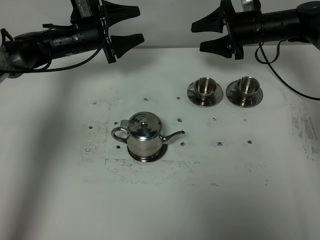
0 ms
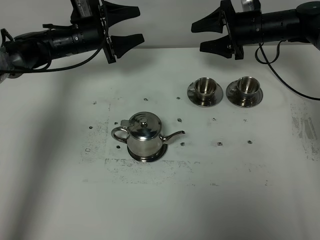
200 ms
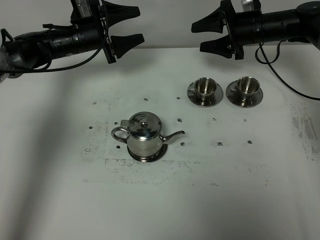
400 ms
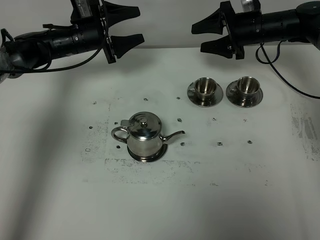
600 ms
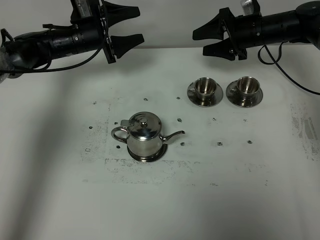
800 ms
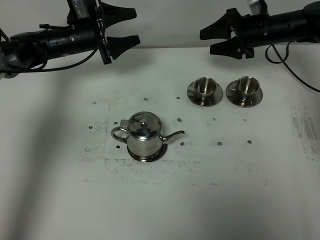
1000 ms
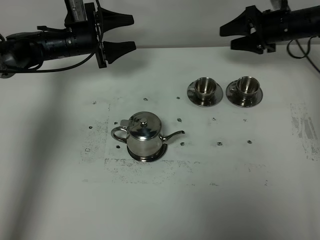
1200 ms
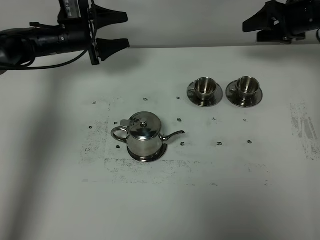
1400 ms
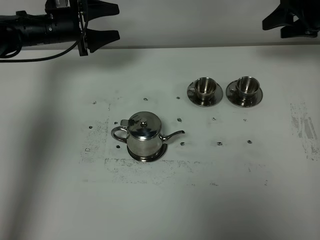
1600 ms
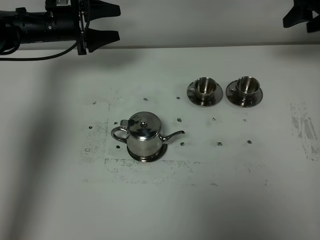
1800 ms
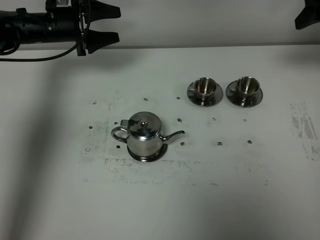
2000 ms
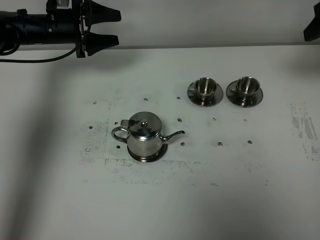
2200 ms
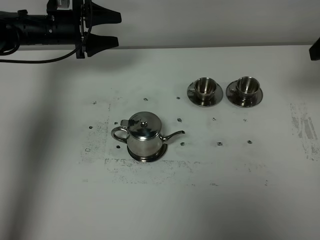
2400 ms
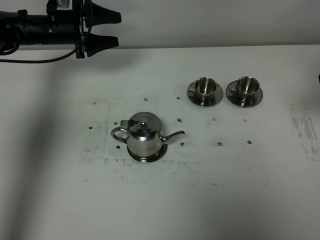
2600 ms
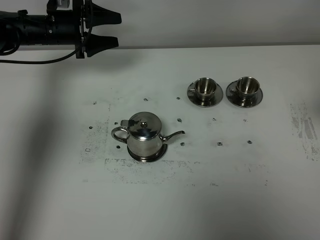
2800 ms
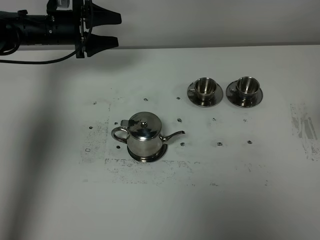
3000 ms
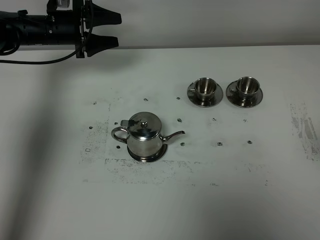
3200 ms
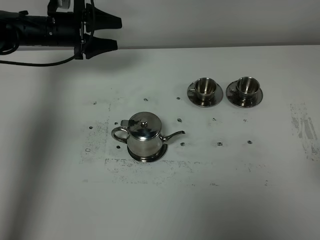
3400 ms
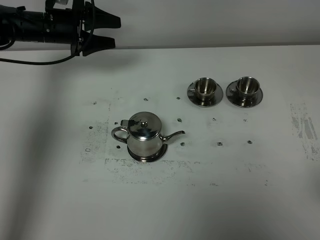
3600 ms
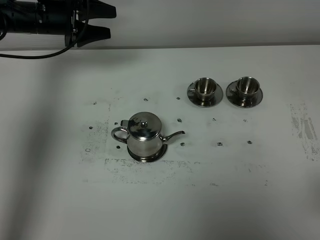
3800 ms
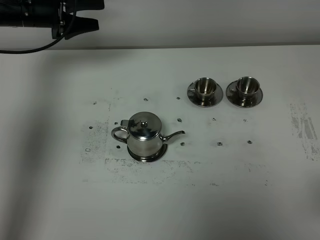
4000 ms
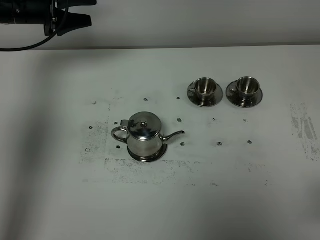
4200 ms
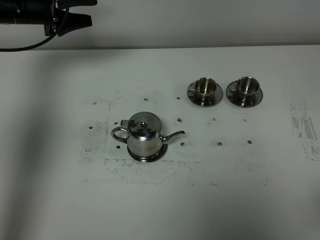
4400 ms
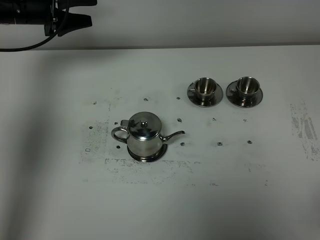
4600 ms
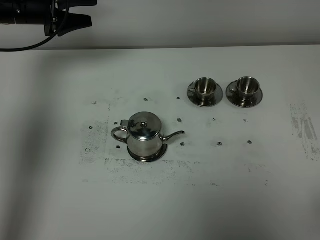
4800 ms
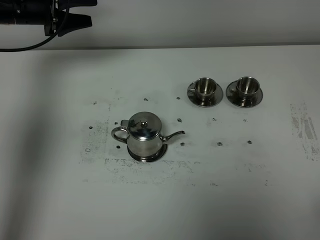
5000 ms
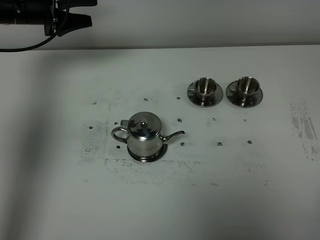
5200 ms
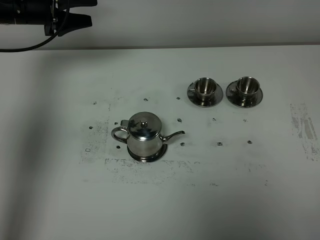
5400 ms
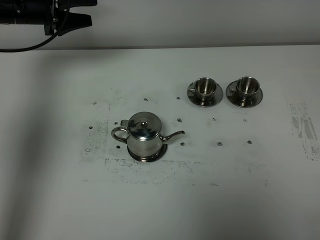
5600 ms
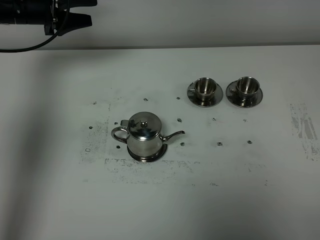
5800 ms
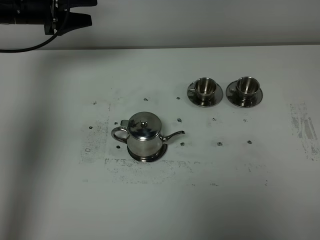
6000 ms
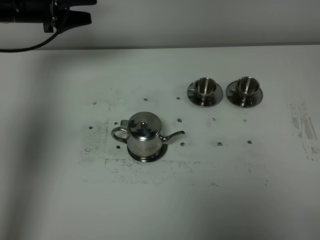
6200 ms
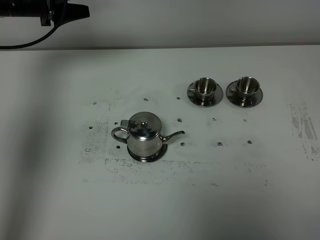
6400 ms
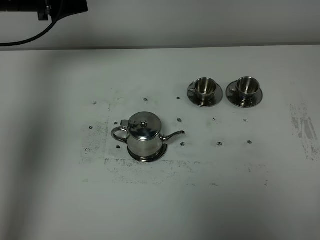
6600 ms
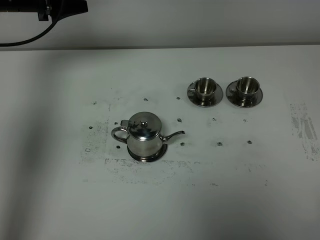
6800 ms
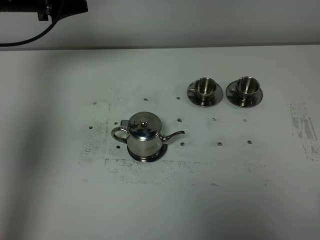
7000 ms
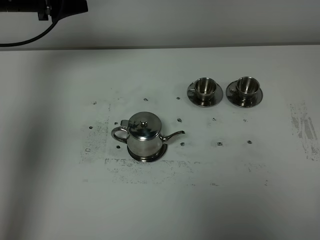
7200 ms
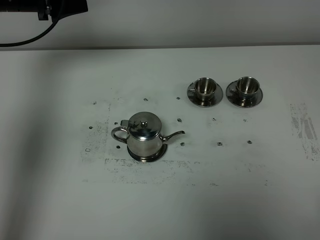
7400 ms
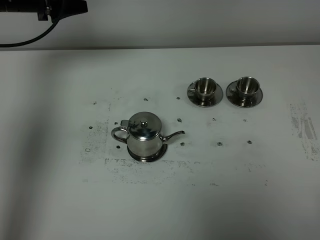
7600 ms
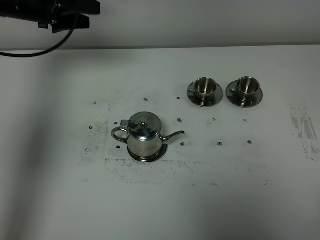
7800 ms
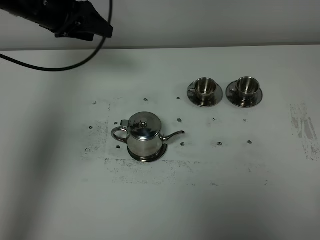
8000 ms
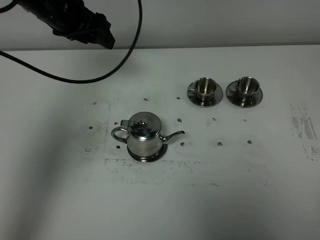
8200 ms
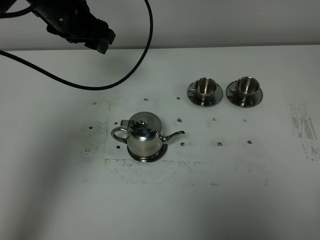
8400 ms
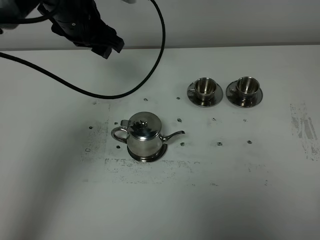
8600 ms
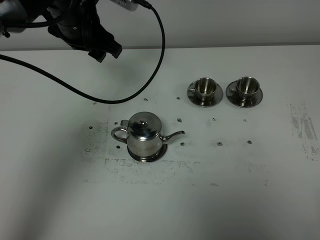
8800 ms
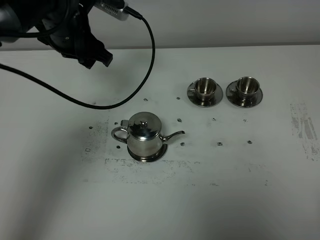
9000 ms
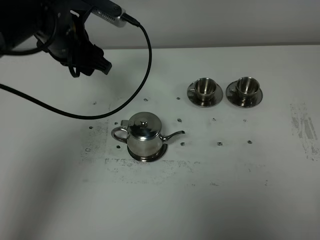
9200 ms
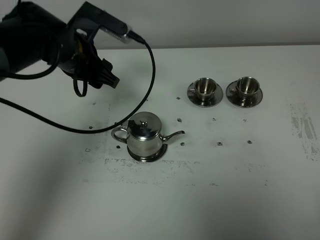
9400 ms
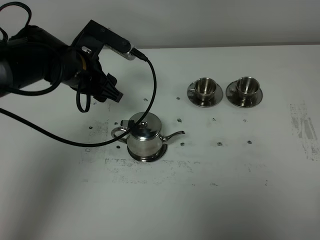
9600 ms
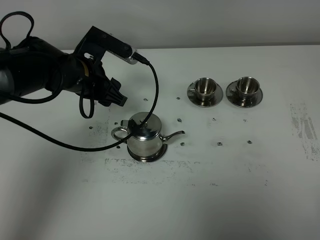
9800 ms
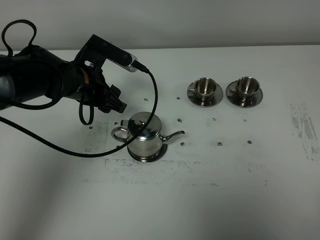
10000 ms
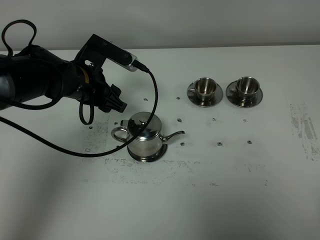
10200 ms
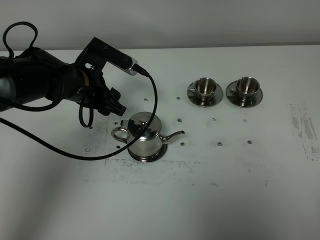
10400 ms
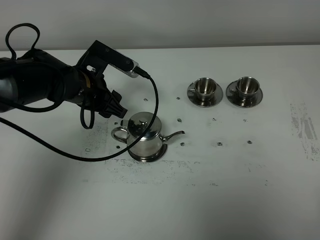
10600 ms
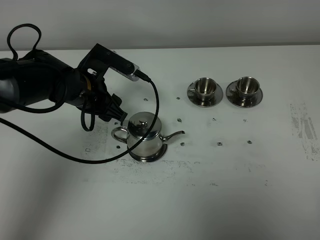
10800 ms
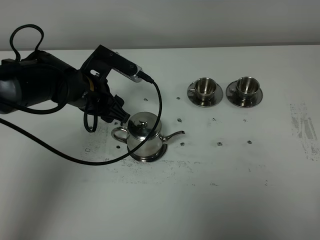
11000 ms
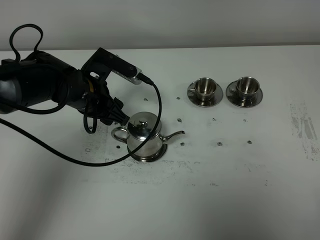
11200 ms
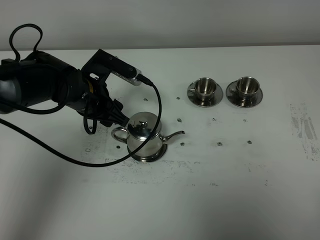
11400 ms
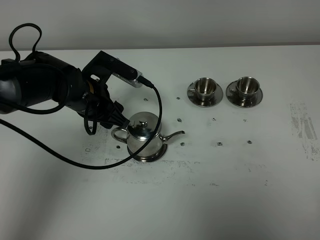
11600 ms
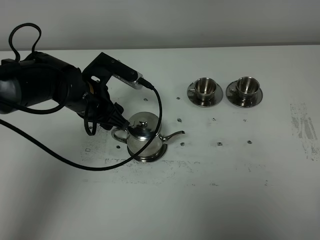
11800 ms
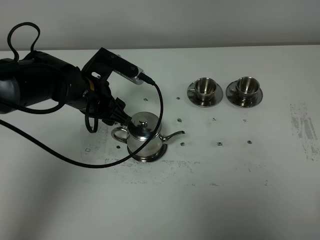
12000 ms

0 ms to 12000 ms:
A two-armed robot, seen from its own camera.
Task of the whole recording: grasp the stainless steel teapot and pour the tea into the two stainless steel teacups one by one, put the stainless steel teapot back in its original place.
0 ms to 1600 ms: The right gripper is displaced to the right and upward by roughly 15 cm, while the left gripper shifts by approximately 5 cm.
1600 ms to 3000 ms: The right gripper goes roughly 30 cm backward.
3000 ms to 4400 ms: The right gripper moves backward and downward, about 15 cm; the left gripper goes about 5 cm upward.
6000 ms to 7600 ms: There are only small adjustments of the grippers.
7600 ms to 9000 ms: The left gripper moves to the right and backward, some 15 cm.
9000 ms to 10400 ms: The left gripper goes roughly 10 cm downward.
10400 ms to 12000 ms: The grippers make only small movements.

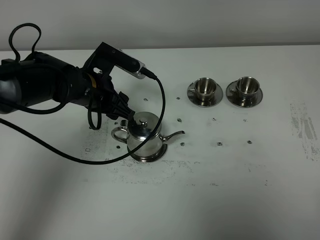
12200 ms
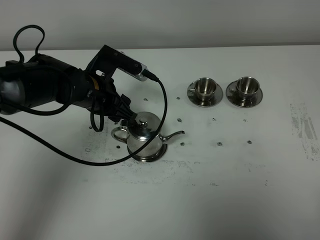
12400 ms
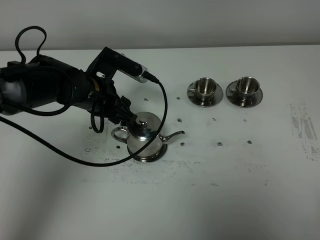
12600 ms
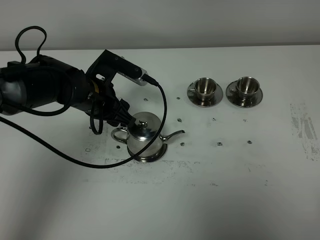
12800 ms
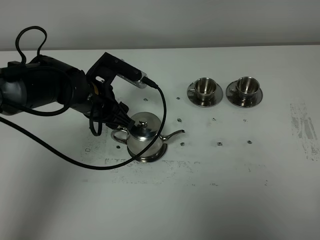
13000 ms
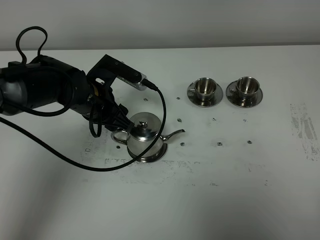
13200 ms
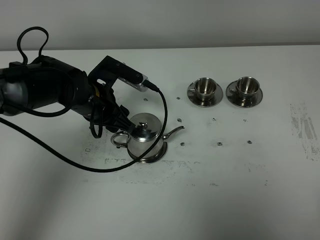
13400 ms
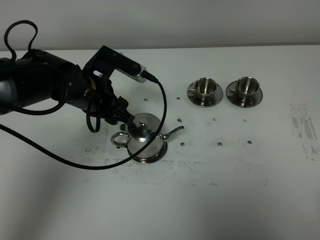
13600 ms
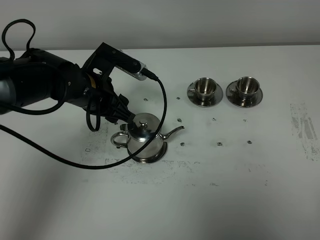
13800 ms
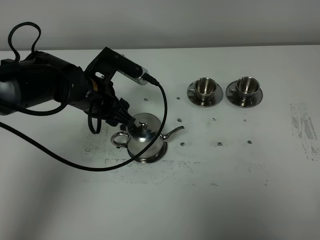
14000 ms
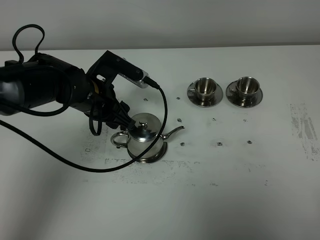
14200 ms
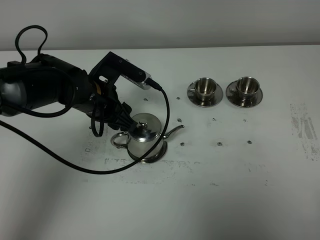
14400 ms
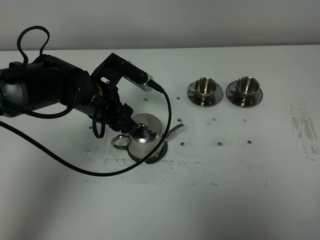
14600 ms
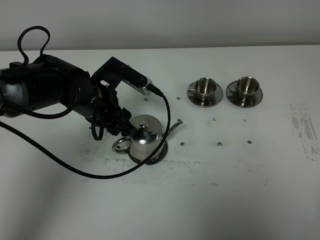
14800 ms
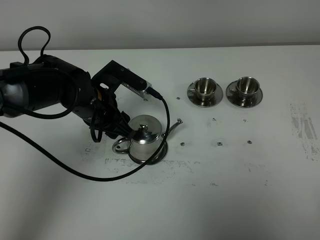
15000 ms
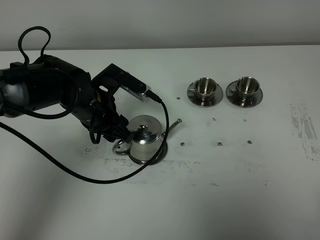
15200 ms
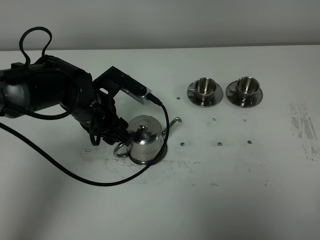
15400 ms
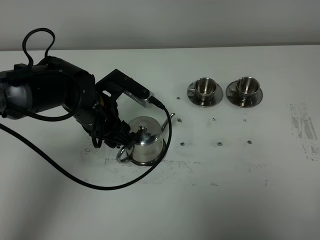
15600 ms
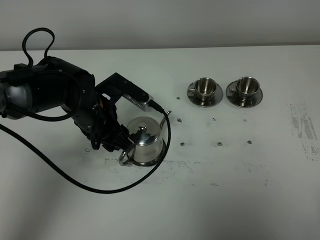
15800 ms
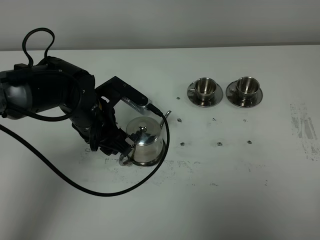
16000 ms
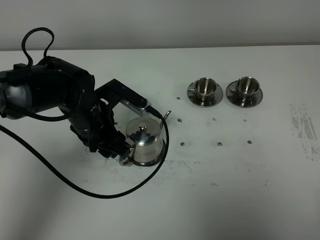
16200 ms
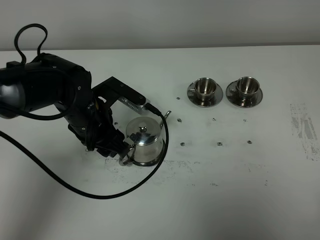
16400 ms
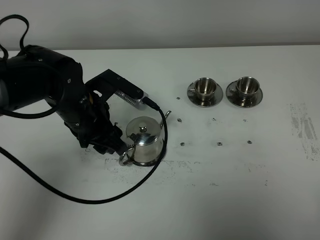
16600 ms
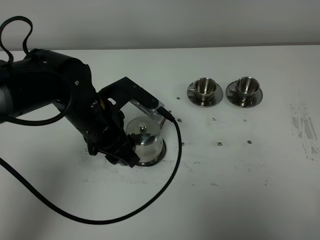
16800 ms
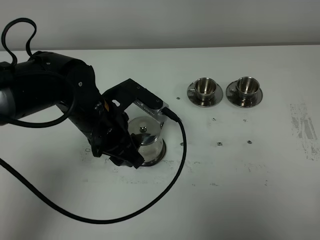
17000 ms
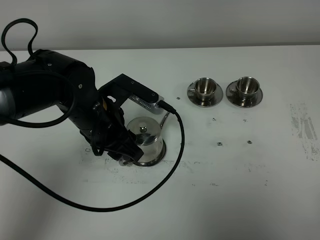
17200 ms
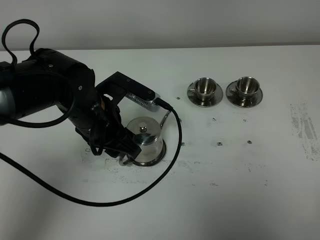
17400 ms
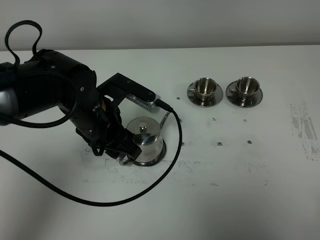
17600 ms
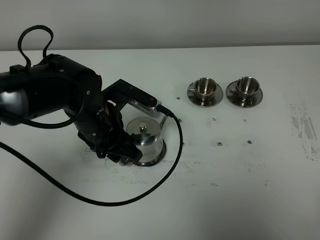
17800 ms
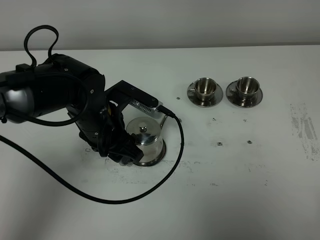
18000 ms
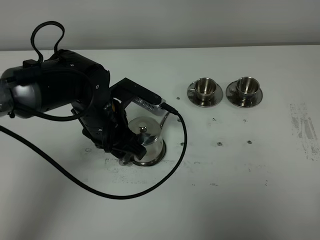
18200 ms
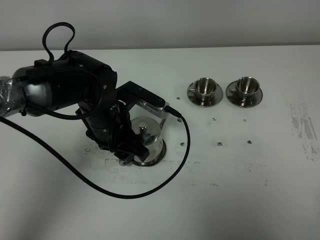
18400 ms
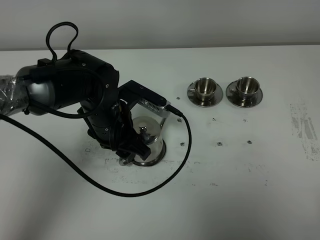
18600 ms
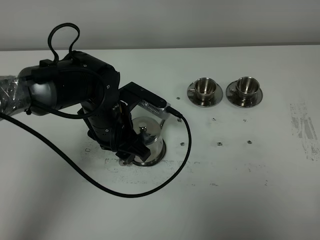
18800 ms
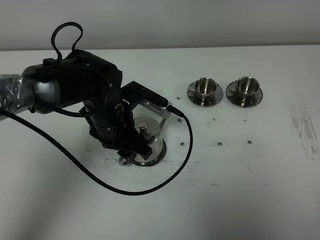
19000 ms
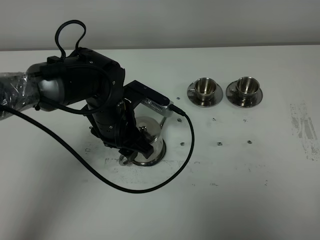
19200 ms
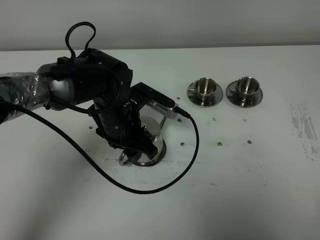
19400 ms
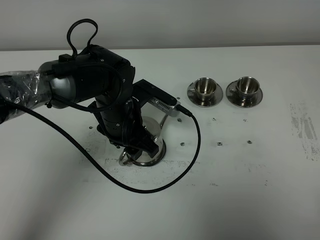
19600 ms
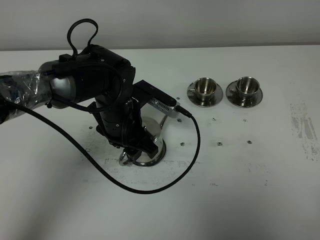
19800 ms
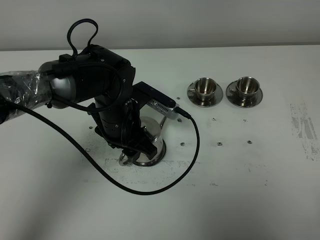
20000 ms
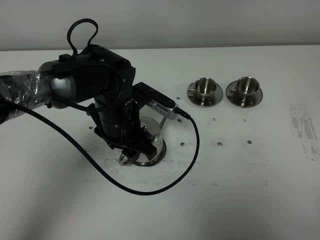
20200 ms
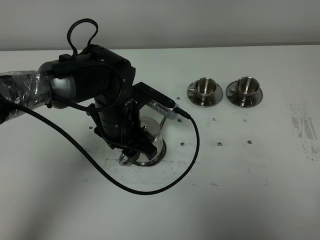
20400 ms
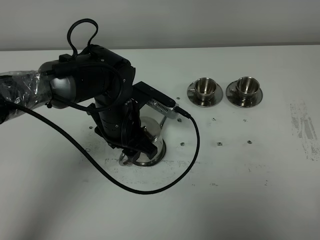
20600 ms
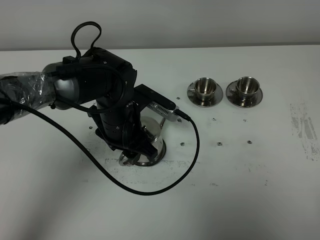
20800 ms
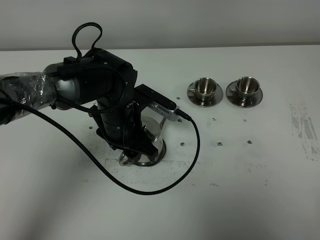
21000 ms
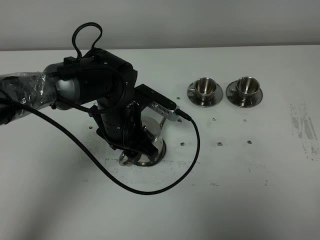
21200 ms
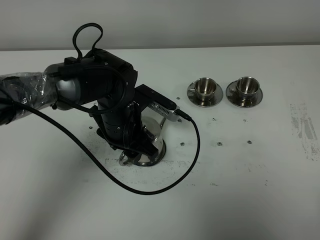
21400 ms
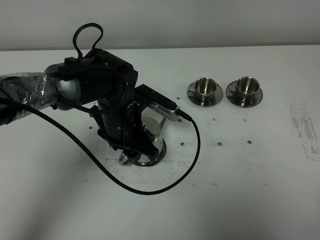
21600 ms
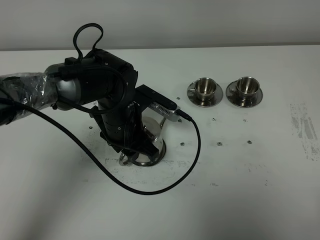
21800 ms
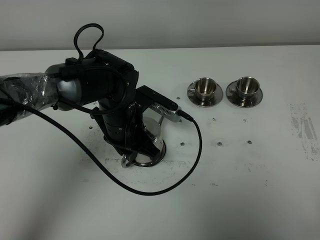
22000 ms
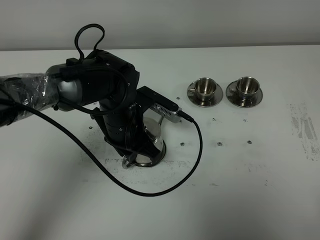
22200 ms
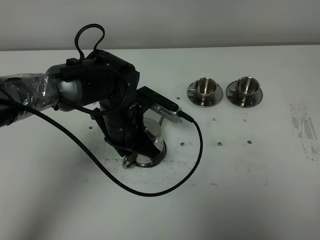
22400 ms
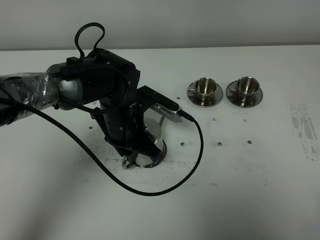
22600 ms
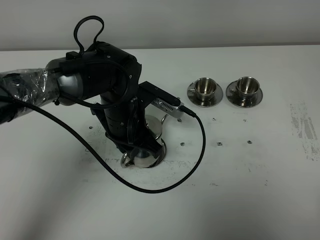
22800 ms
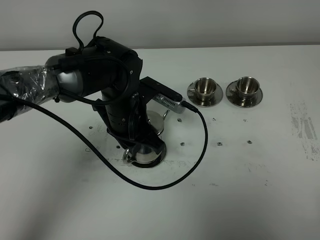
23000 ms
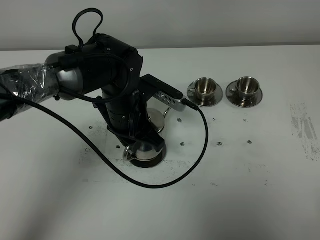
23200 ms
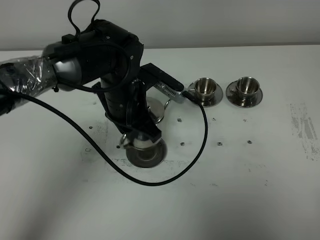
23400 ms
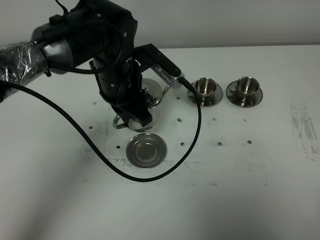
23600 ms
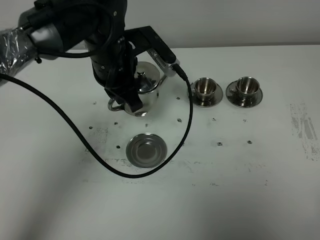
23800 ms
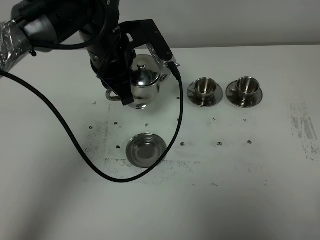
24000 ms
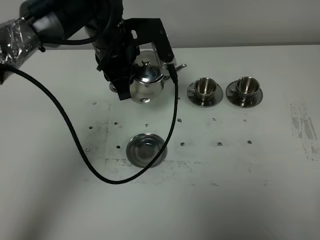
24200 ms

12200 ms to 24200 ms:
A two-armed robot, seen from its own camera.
Task of the whole recording: grasp the stainless steel teapot and pour the tea into the two stainless steel teacups one by one, put the stainless steel teapot back in its original place.
Step, 12200 ms to 23200 ms: Pick up the teapot with the left gripper.
12200 ms to 15200 ms: The grippers stay close to where they were, moving slightly.
15200 ms to 16600 ms: There are only small adjustments of the grippers.
16600 ms to 18200 ms: There are only small adjustments of the grippers.
18200 ms to 19800 ms: The grippers make only small movements.
19800 ms to 21200 ms: Neither gripper changes place.
21200 ms to 22600 ms: The left gripper closes up.
22600 ms to 24200 ms: The left gripper shifts roughly 15 cm upward and forward.
